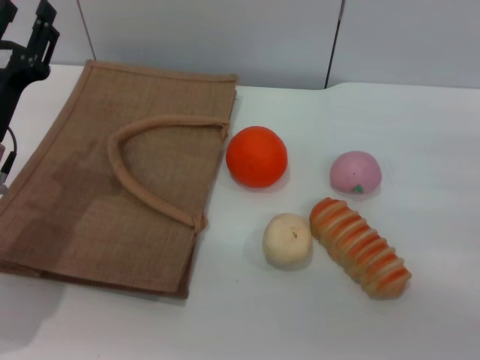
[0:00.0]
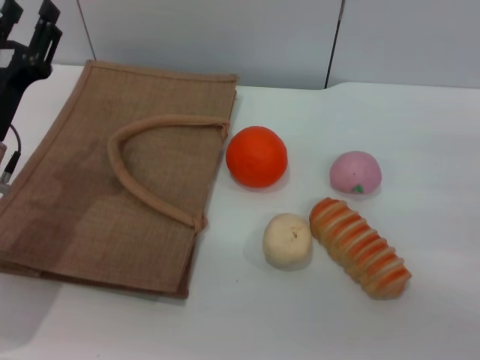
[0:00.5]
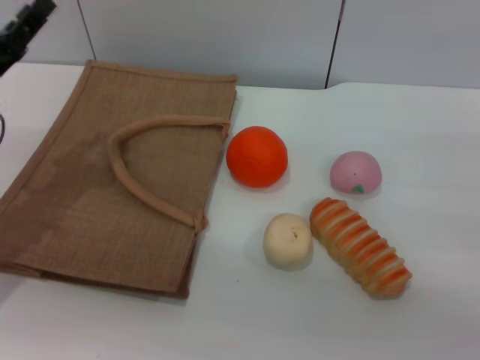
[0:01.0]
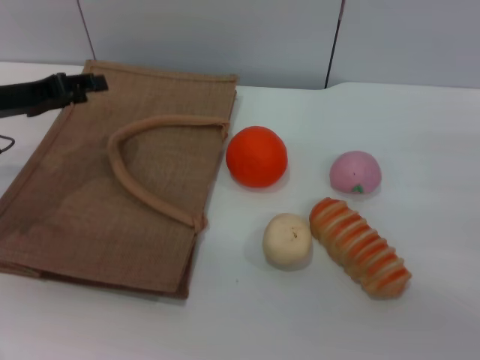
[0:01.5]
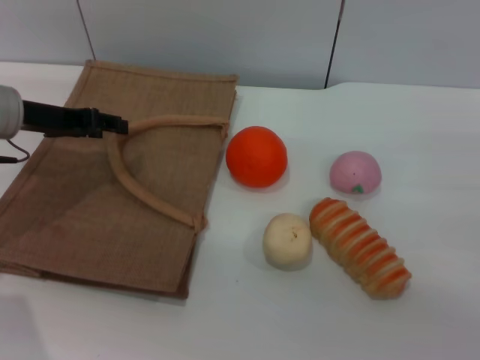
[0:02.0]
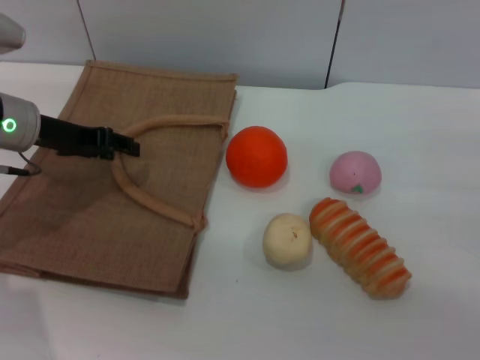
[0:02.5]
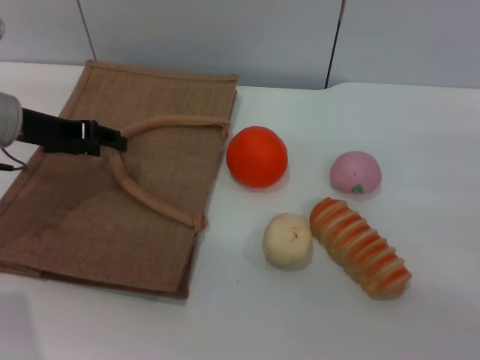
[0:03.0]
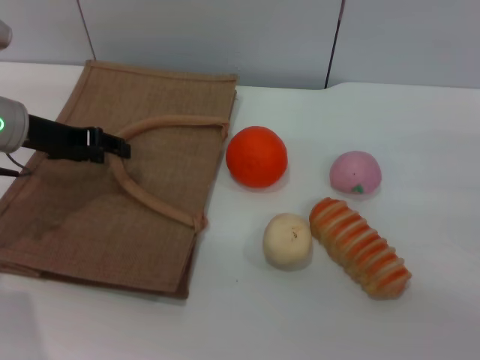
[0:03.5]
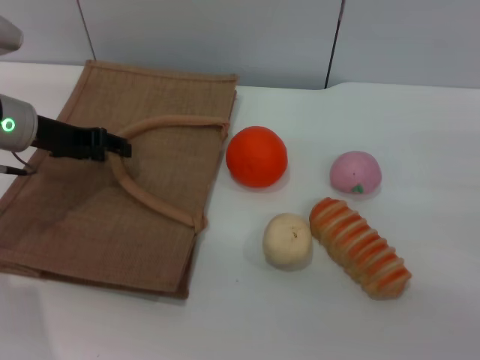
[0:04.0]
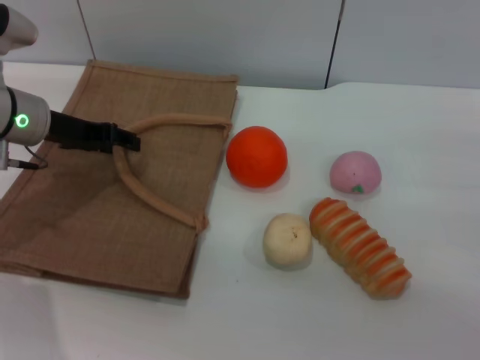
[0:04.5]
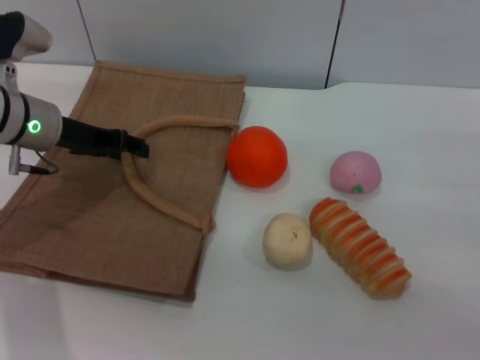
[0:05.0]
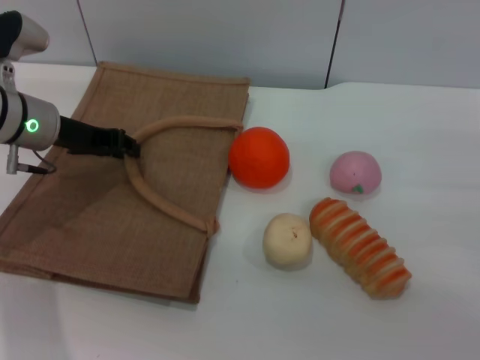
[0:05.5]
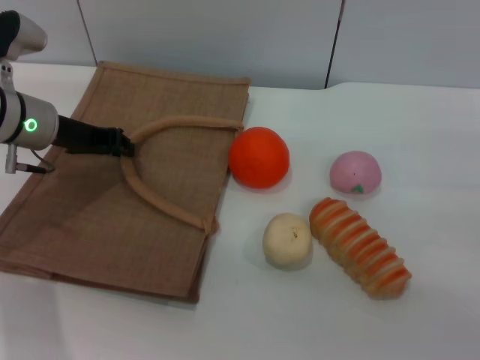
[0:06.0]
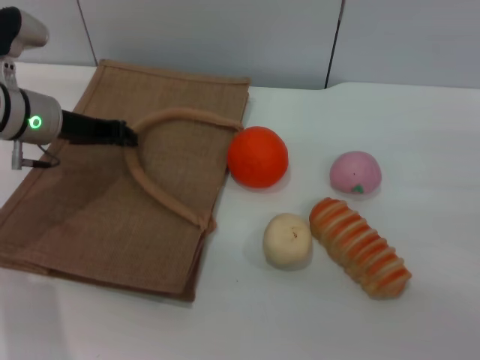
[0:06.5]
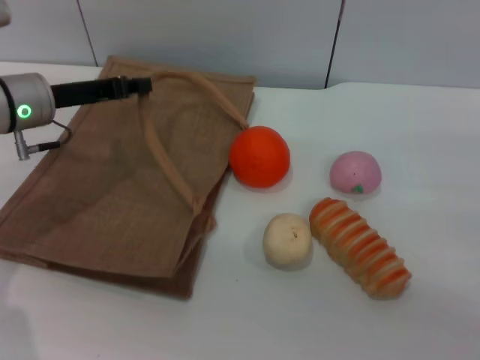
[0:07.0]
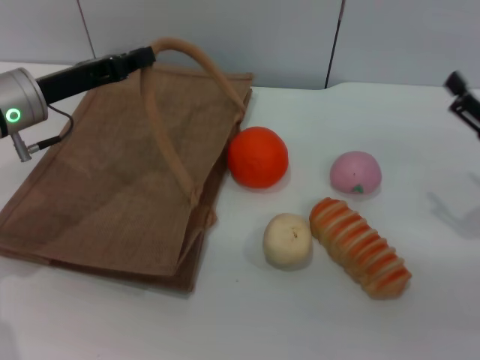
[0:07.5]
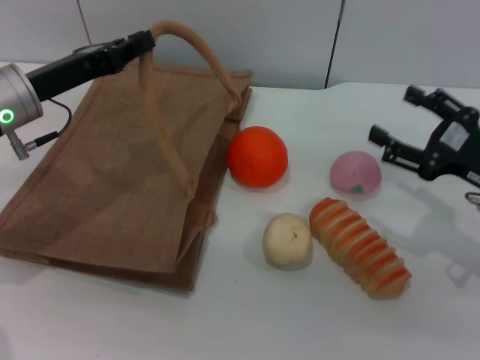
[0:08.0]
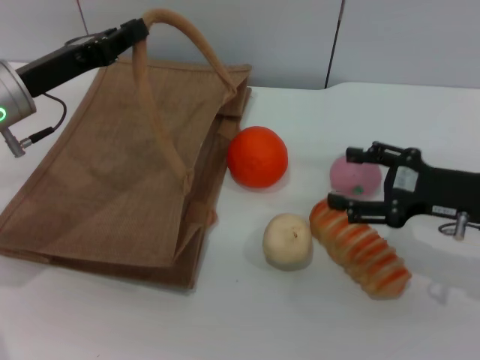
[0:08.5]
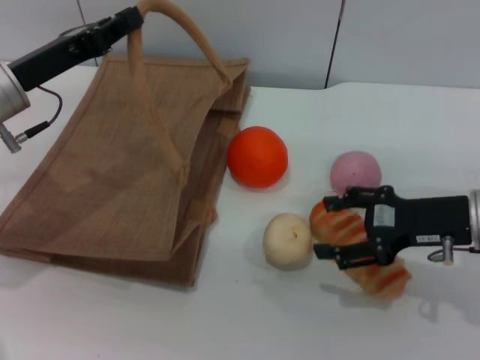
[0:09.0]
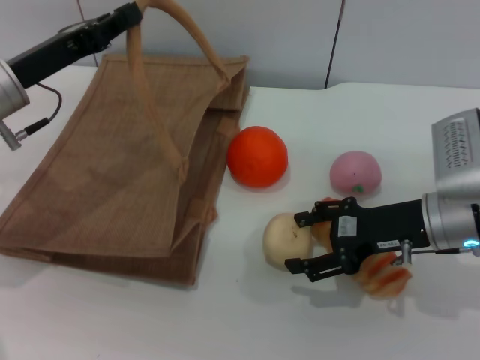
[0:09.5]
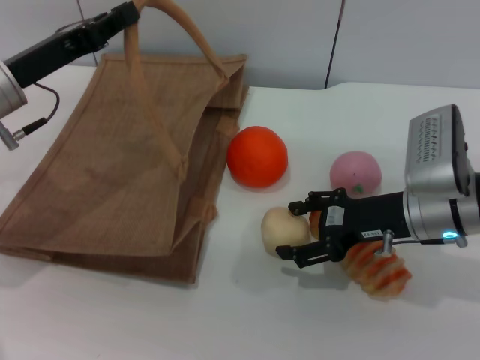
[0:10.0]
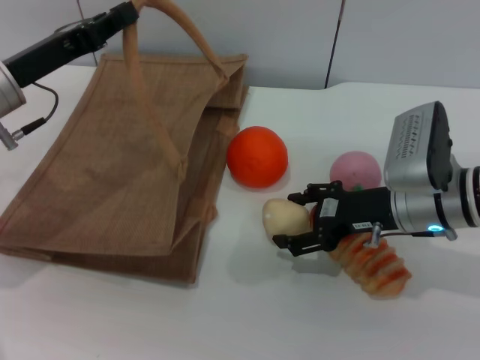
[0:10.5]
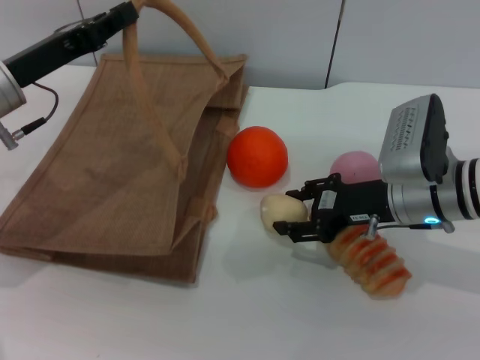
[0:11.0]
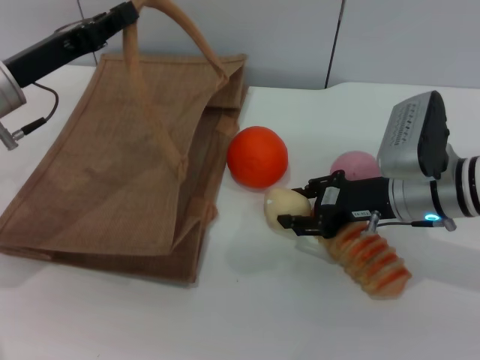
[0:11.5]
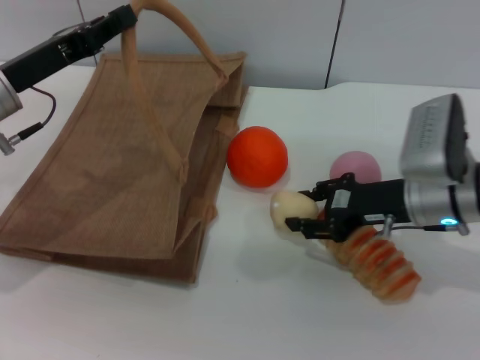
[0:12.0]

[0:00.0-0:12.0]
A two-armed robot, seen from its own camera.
Task of the whole recording: pick up the egg yolk pastry from the table and place it in the brown handbag.
Step, 0:00.0 to 0:07.0: Lift the woven bag with the left gripper to open it.
0:00.0 to 0:02.0: The left gripper moves forward, roughly 10 cm.
0:02.0 to 0:04.0: The grippers stay close to where they were, moving slightly.
0:04.0 to 0:06.0: The left gripper closes.
0:06.0 to 0:08.0: The right gripper heads to the left, covering roughly 5 cm.
0:08.0 to 0:10.0: The right gripper heads to the left, covering about 10 cm.
0:10.0 to 0:12.0: The right gripper closes.

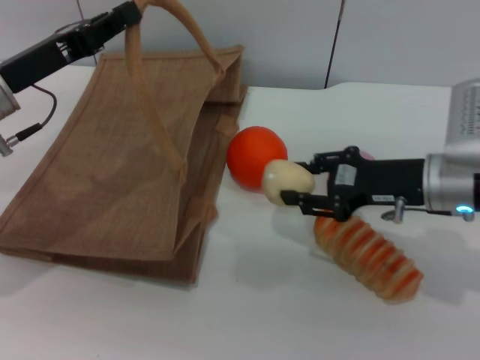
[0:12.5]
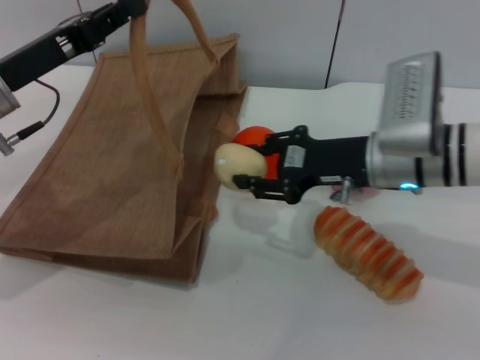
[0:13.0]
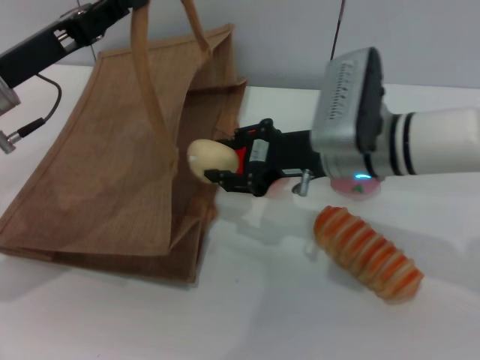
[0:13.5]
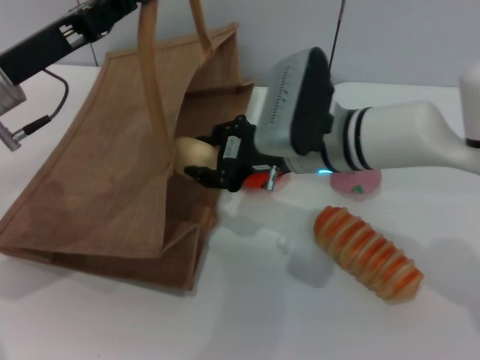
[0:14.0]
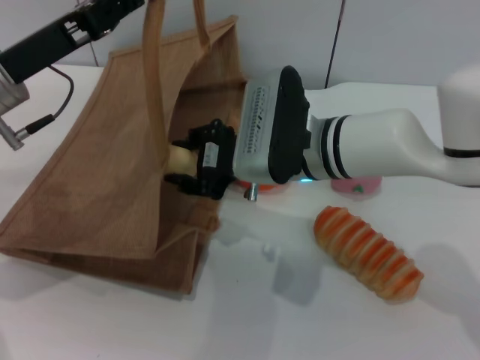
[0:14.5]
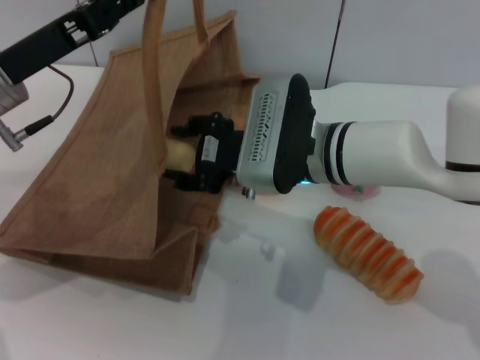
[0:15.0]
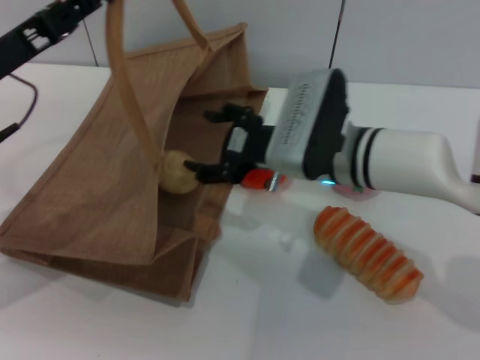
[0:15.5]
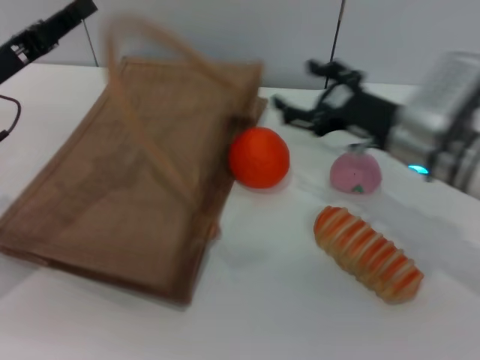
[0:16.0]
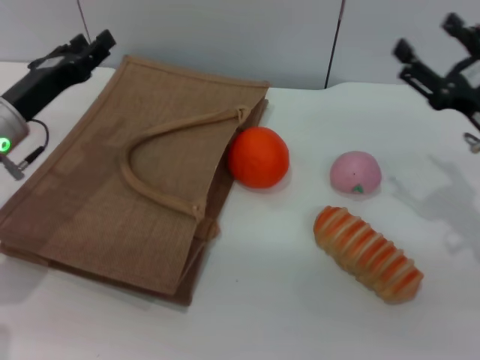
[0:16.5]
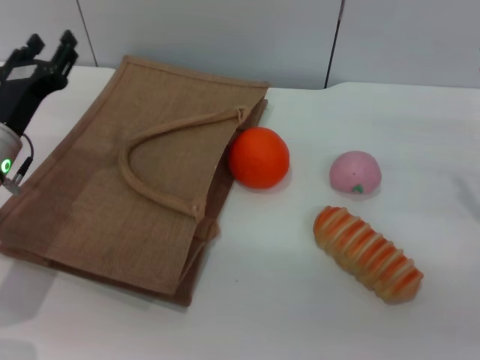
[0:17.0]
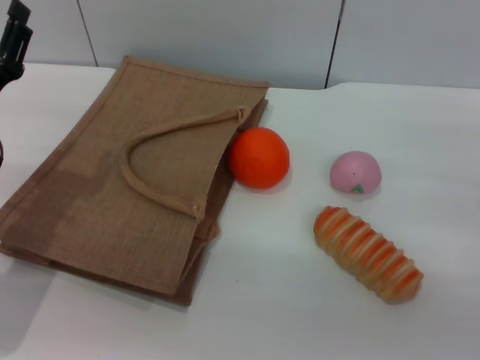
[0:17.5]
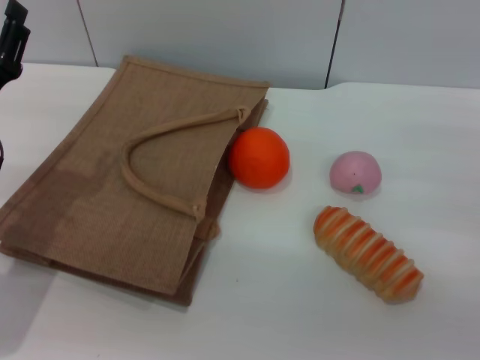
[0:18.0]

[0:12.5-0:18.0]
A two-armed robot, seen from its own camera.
Task of the whole recording: pick up the egg yolk pastry from the table and place it in the brown handbag.
Step, 0:13.0 to 0:15.5: Place the egg yolk pastry into the woven bag with the right gripper.
Step, 0:16.0 to 0:17.0: Lower the woven bag with the left gripper to close it.
0:12.5 to 0:14.5: The right gripper shifts about 15 cm to the left.
0:14.5 to 0:16.0: The right gripper is displaced to the right by about 15 cm, and opens; the left gripper ends up some 5 cm from where it was.
0:16.0 to 0:18.0: The right gripper travels to the right and backward by approximately 15 cm. The left gripper travels downward by some 5 cm, and opens.
